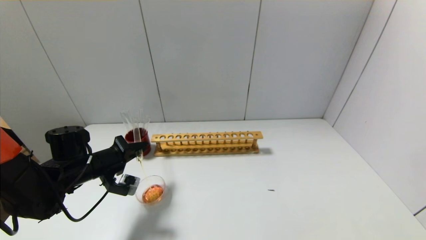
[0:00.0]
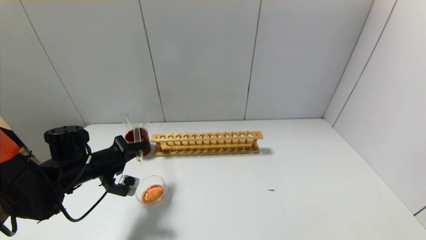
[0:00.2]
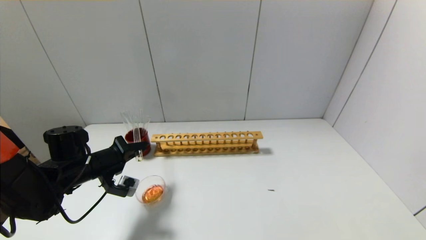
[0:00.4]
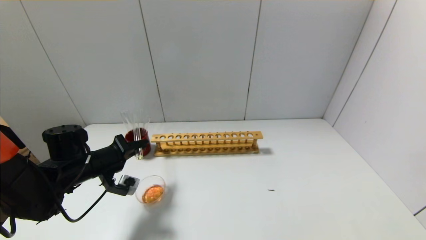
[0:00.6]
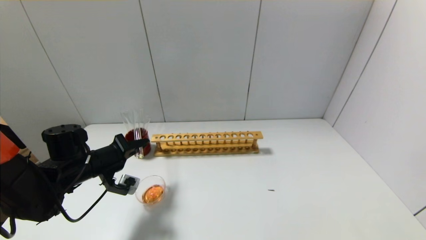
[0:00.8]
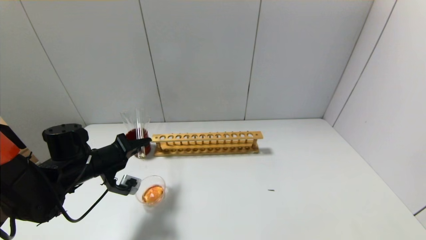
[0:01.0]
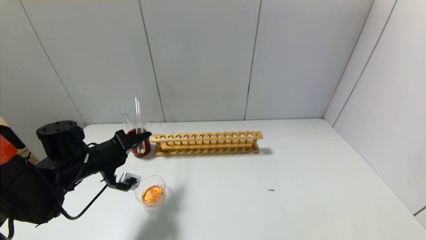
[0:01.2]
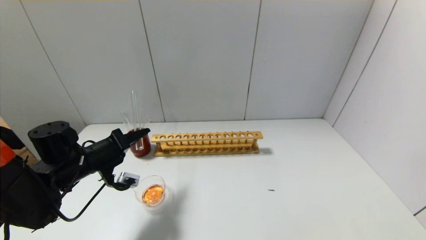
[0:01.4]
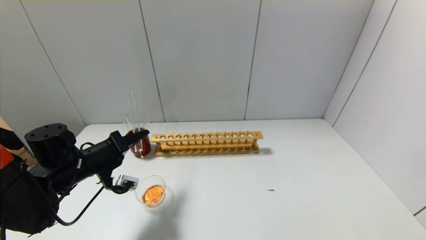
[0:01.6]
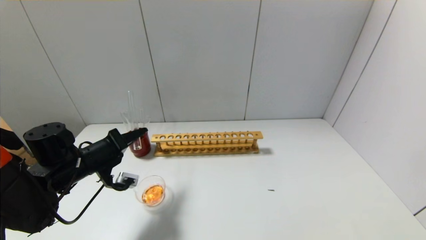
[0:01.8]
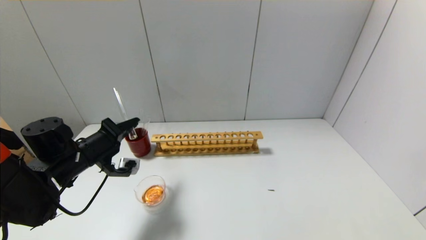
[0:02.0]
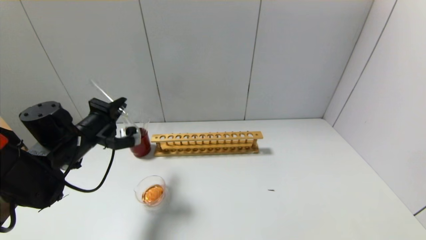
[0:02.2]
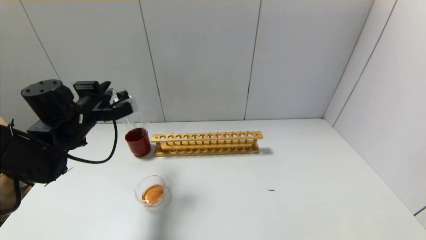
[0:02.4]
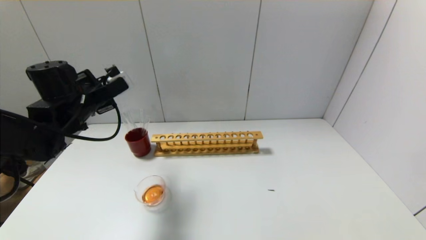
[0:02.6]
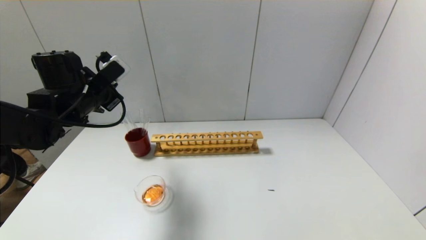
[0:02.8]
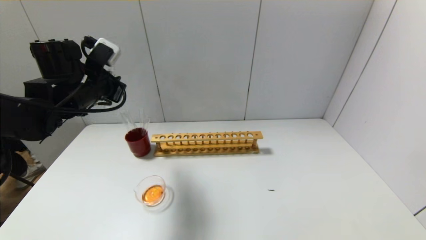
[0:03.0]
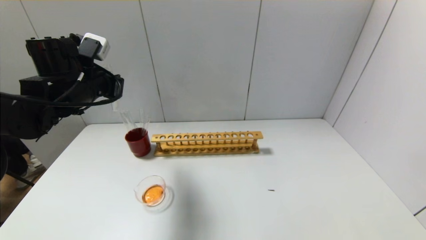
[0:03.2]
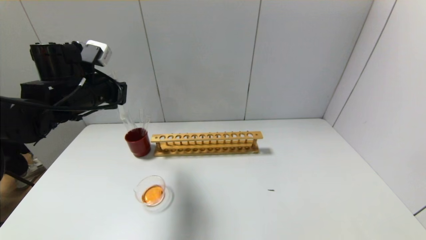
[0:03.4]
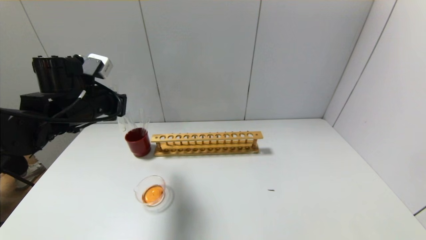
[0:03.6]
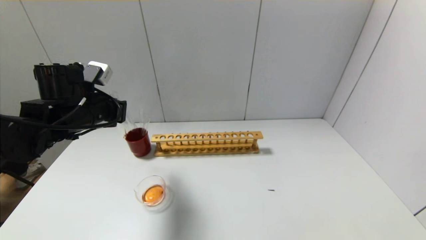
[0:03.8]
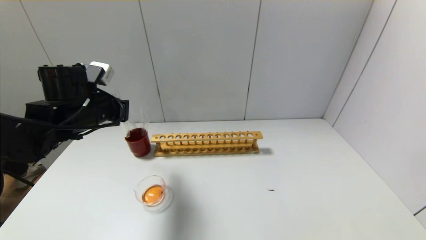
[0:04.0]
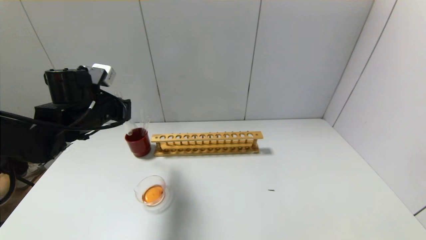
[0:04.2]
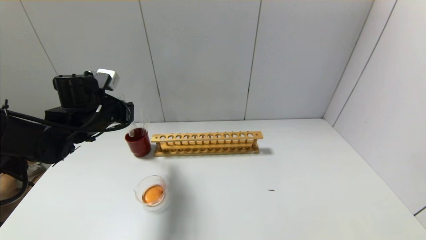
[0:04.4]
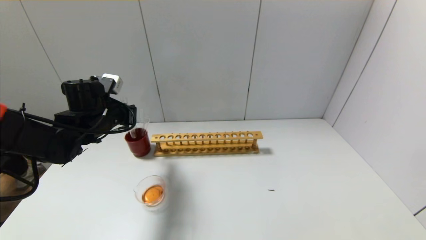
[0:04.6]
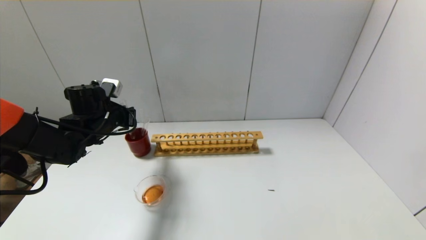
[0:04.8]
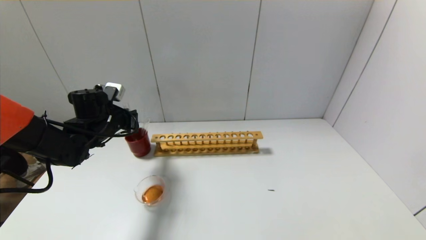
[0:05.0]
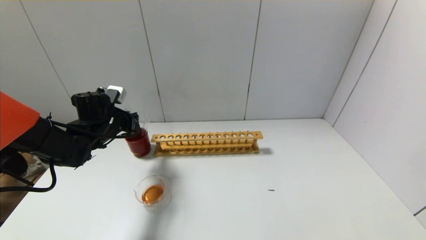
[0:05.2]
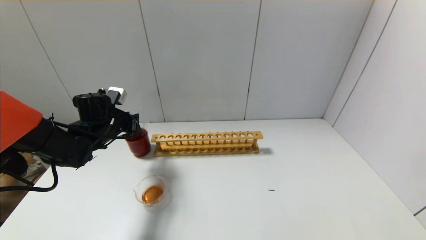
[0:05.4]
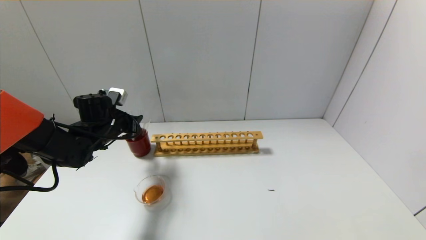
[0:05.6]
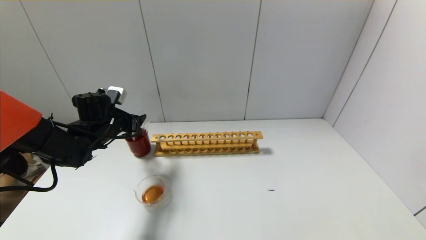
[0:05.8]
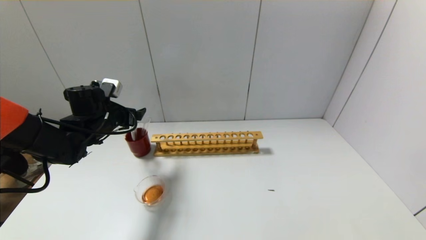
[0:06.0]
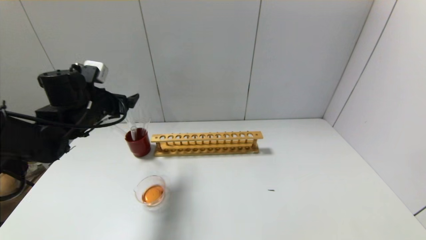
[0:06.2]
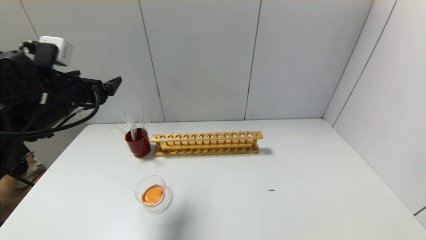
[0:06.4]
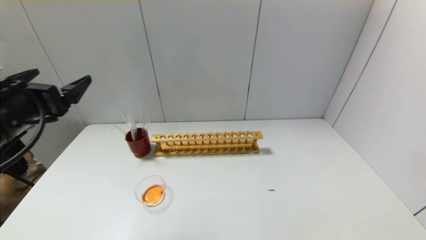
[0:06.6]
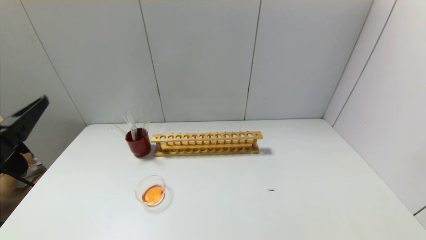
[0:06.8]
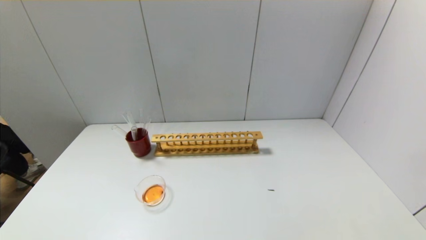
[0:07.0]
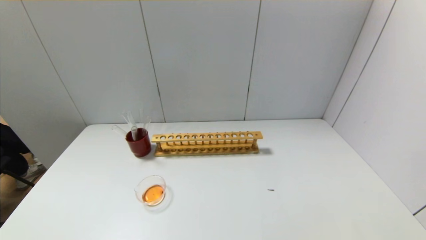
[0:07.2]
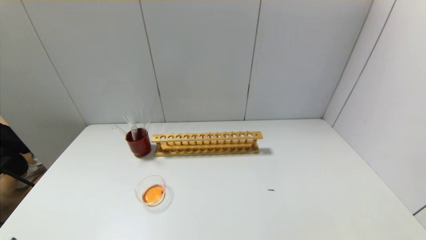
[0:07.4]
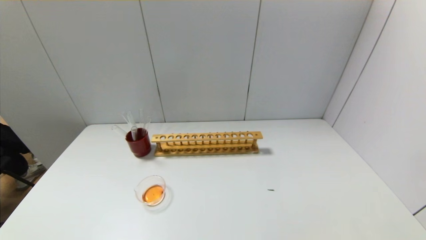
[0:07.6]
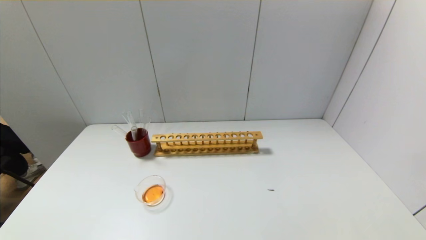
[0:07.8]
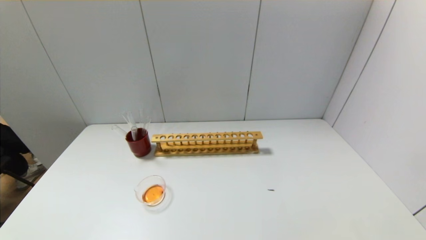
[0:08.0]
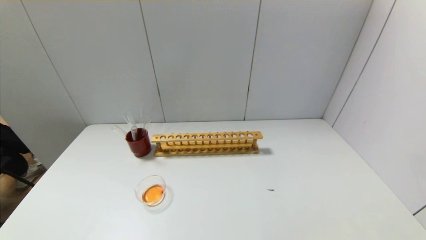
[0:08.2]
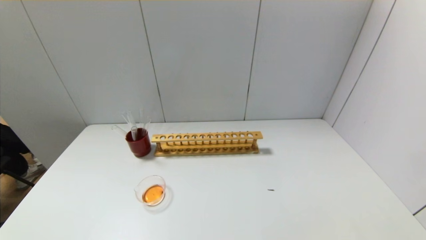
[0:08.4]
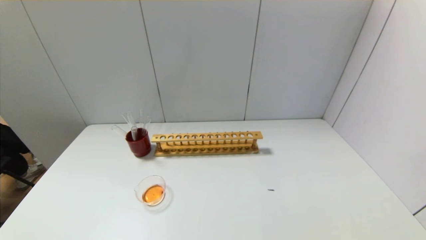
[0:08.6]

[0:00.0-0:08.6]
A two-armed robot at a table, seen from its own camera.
Step, 0:00.0 to 0:02.0: Pour the yellow reagent into the graduated cylinder with the left gripper.
Step, 0:02.2 to 0:05.4: Place the test tube into the brown cup with the left gripper.
0:01.4 to 0:02.8: The left gripper is displaced upward and forward by some 15 cm.
0:04.4 to 0:05.8: The left gripper goes roughly 5 cm downward, and opens its fingers.
0:05.8 to 0:07.2: The left gripper heads backward, covering some 40 cm.
